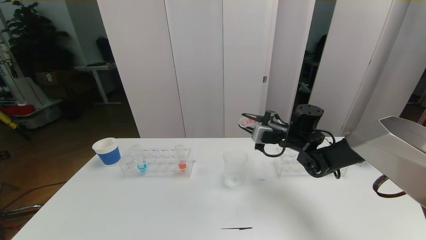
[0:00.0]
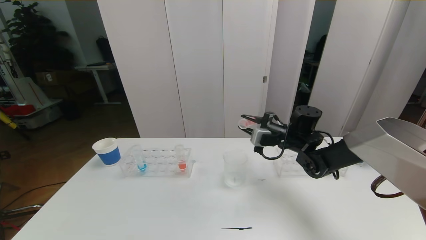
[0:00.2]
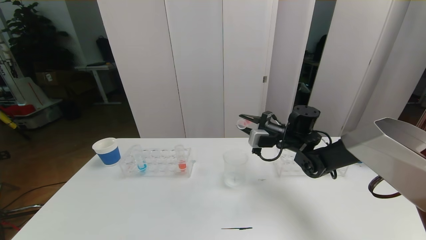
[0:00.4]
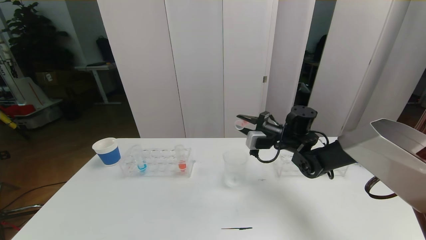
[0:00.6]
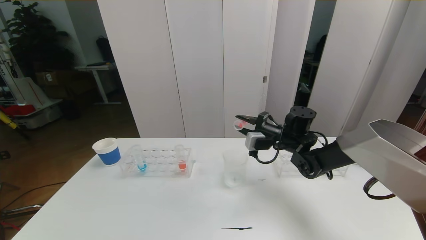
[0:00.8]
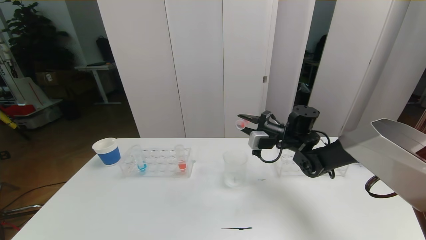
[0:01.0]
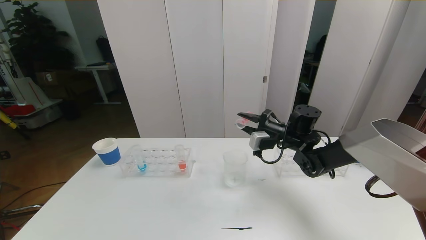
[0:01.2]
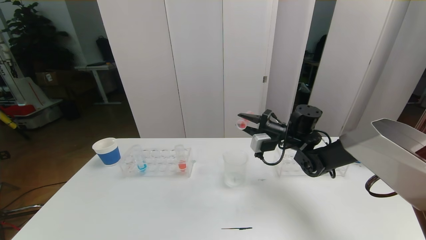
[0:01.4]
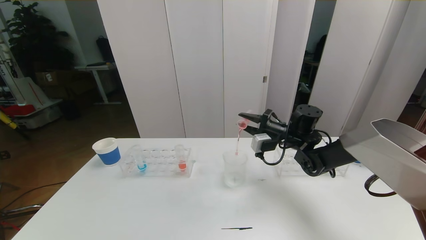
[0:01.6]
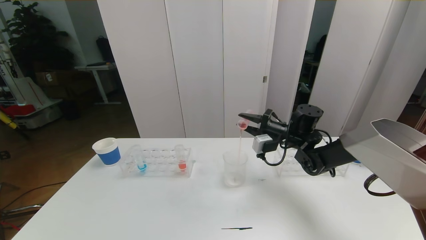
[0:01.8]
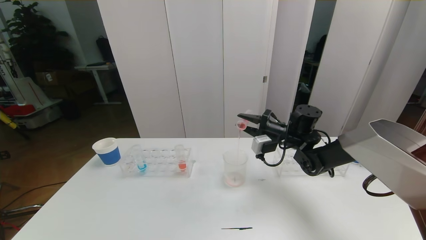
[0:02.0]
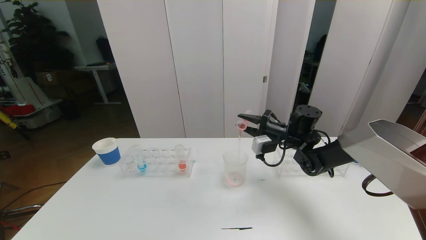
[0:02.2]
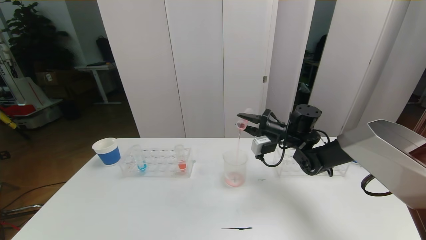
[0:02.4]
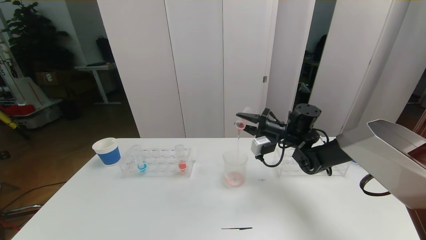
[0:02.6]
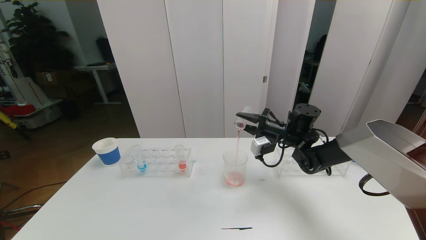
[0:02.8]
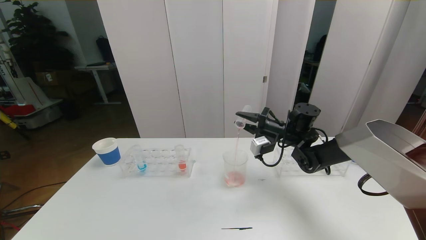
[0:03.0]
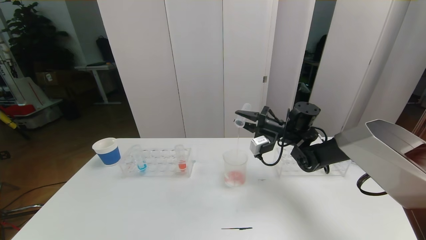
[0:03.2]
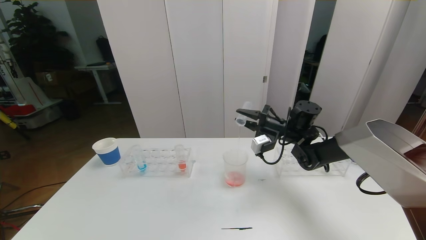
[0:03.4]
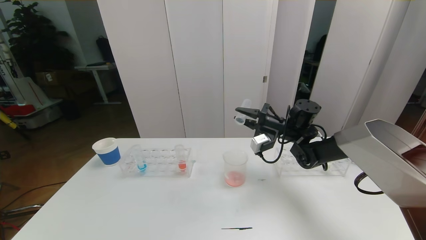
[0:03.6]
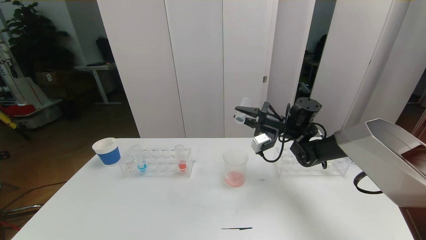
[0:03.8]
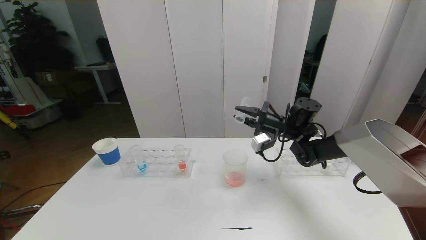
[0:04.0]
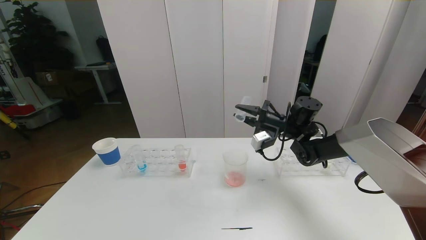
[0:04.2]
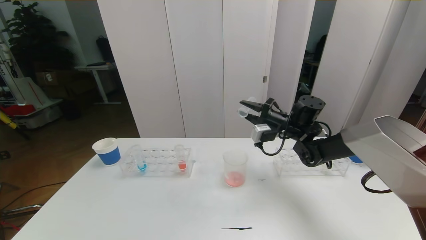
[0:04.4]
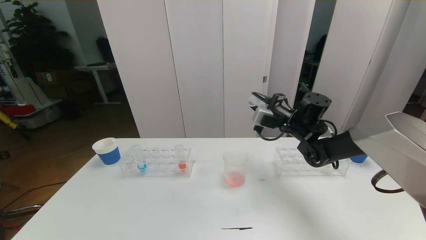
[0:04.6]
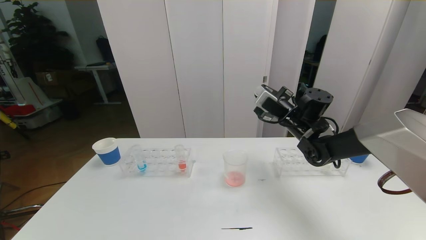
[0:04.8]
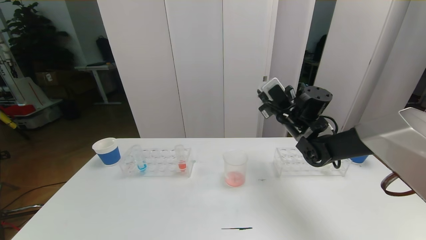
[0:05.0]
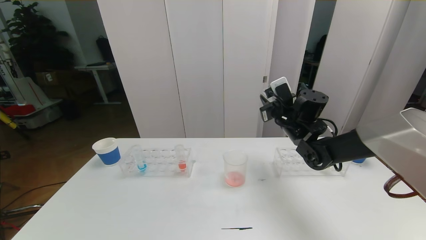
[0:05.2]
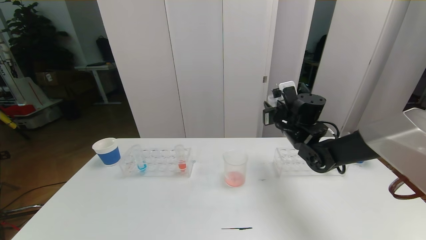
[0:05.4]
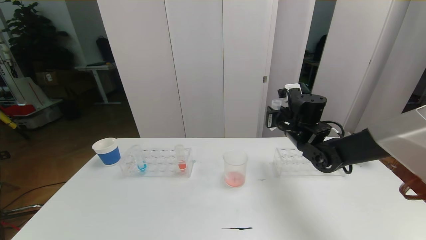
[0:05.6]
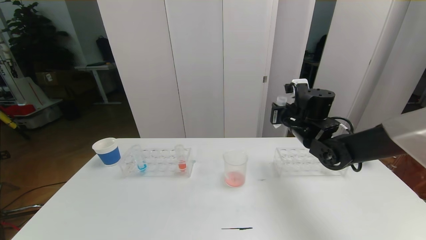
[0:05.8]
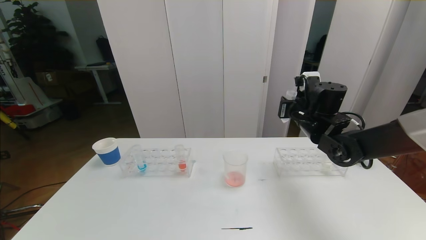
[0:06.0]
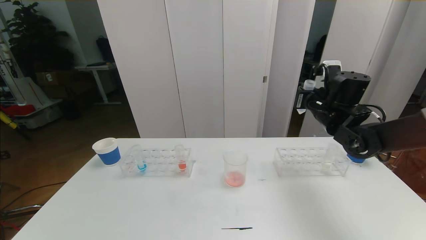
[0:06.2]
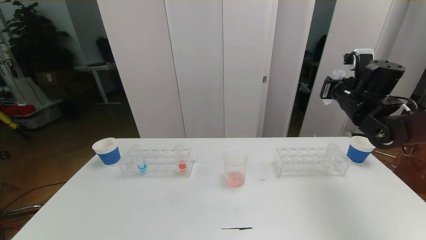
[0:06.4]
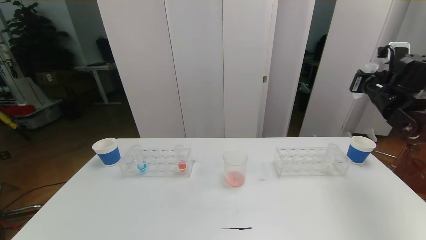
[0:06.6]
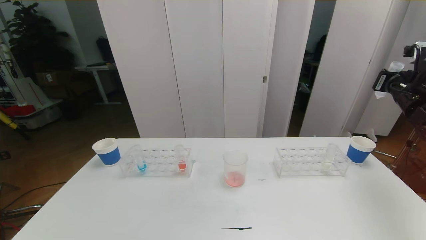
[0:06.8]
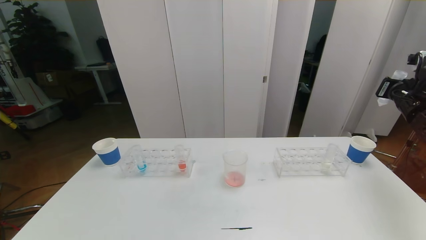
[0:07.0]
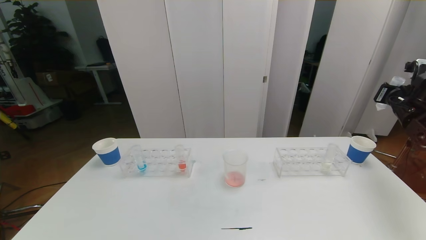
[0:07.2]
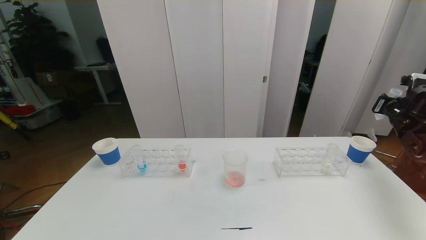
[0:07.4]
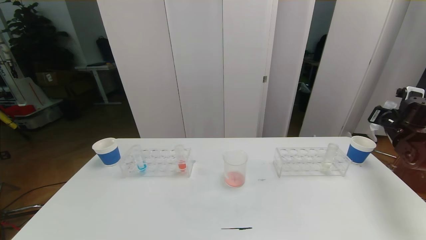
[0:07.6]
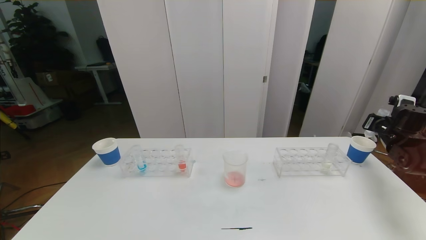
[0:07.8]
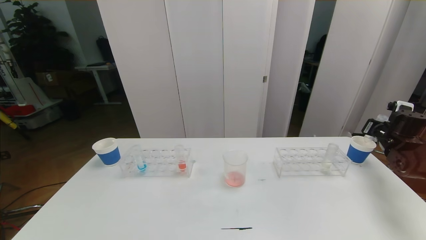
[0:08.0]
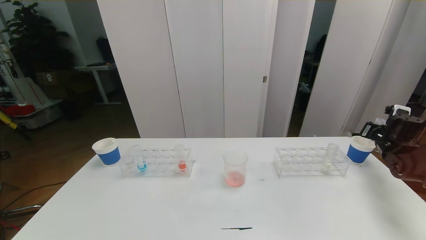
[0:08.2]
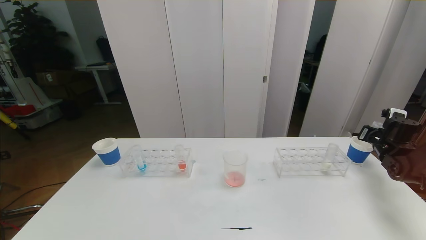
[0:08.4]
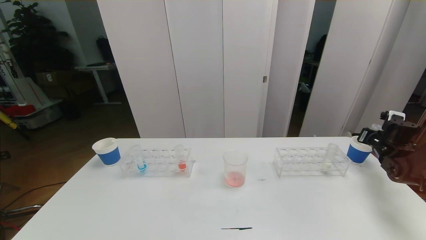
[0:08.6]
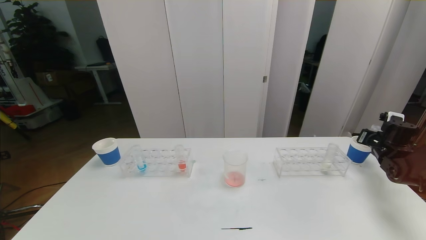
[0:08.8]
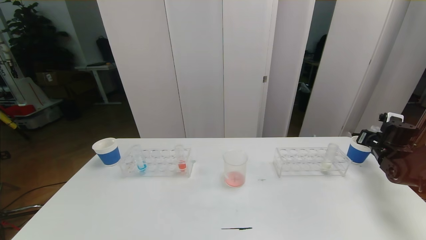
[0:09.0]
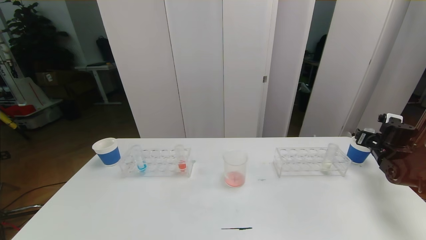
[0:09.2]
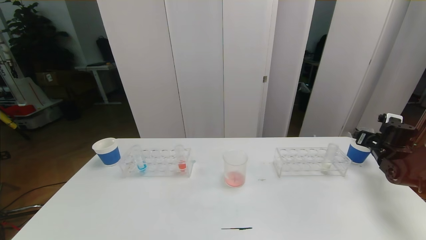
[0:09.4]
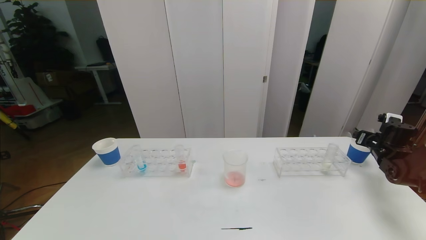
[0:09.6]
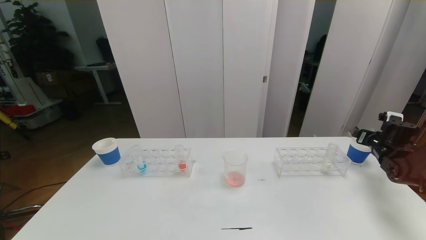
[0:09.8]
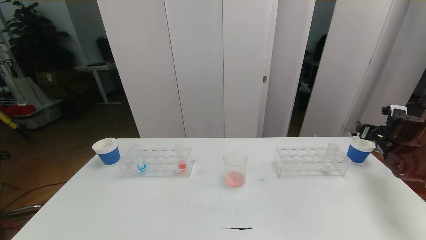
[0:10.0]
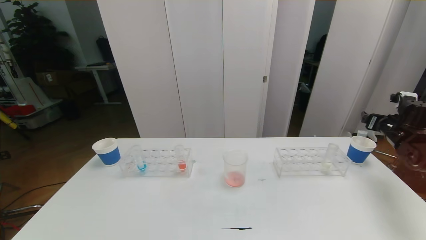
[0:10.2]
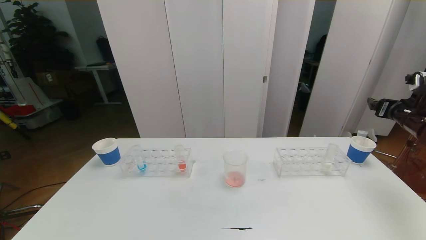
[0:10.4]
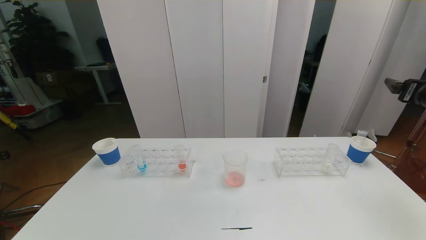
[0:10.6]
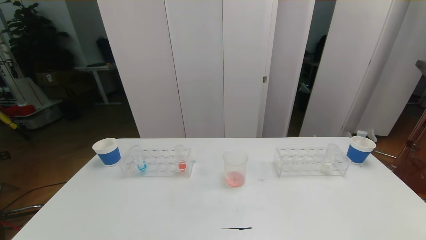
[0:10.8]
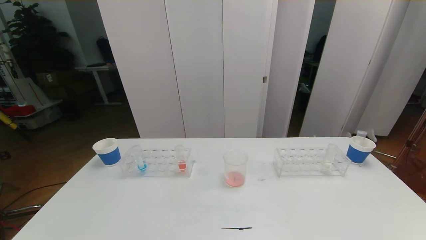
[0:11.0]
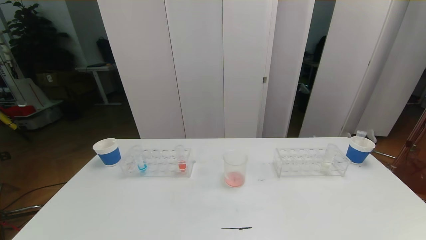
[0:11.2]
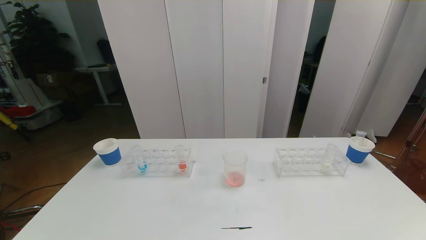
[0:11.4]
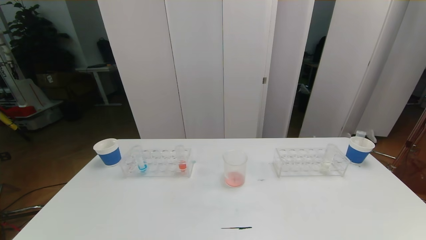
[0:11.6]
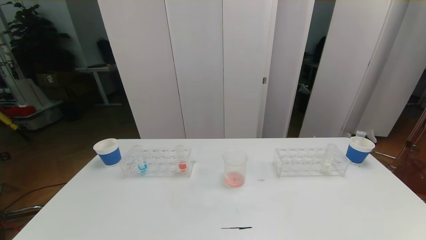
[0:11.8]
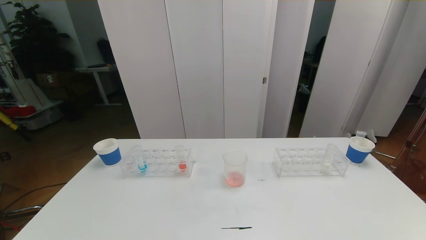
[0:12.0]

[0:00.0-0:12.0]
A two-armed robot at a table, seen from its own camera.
Task of the whole recording: pick up the test tube with red pigment the test tube with blue pigment and the test tube with white pigment by grippers and pour them into the beaker.
0:00.0 to 0:01.6: There are only small adjustments of the grippers.
0:01.6 to 0:03.0: The grippers move only a little.
0:03.0 to 0:04.4: The grippers make only small movements.
0:04.4 to 0:06.0: The right gripper ends up approximately 5 cm from where it was.
0:06.0 to 0:07.6: The right gripper moves to the right, roughly 25 cm.
0:07.6 to 0:09.0: The right gripper travels downward by roughly 10 cm.
0:09.0 to 0:10.4: The right gripper goes about 15 cm upward, and opens up.
0:10.4 to 0:12.0: The right gripper is displaced backward by some 40 cm.

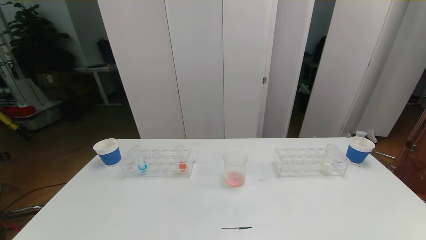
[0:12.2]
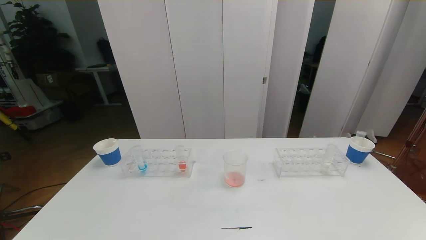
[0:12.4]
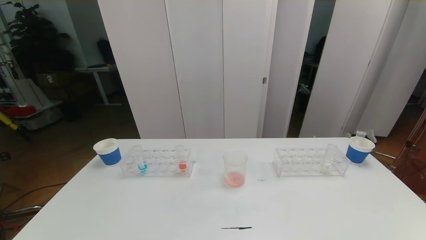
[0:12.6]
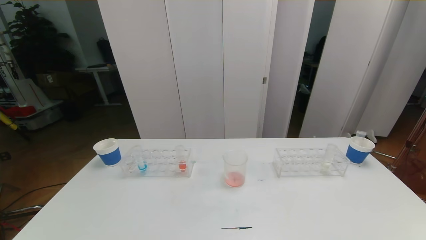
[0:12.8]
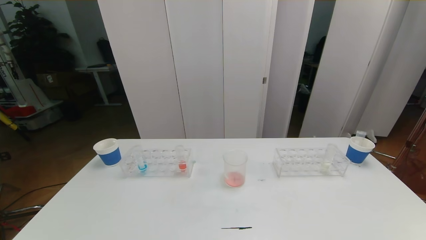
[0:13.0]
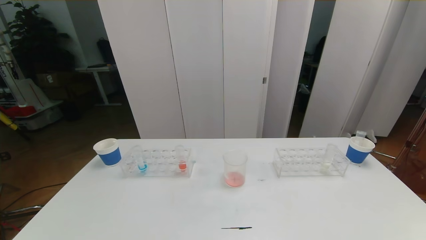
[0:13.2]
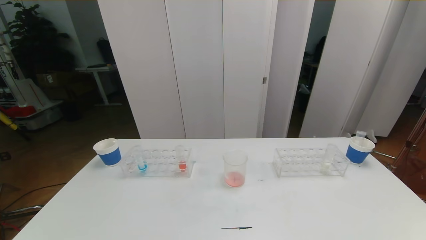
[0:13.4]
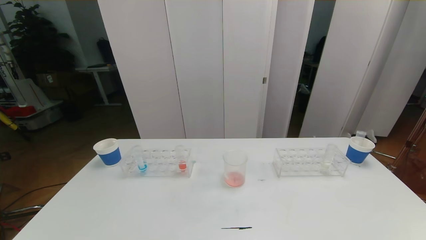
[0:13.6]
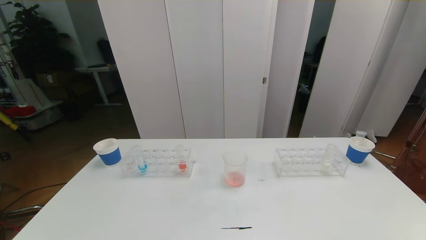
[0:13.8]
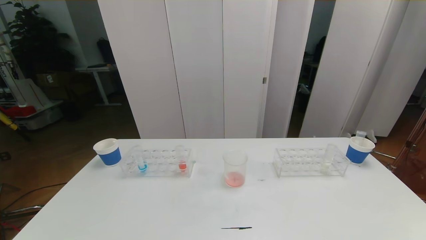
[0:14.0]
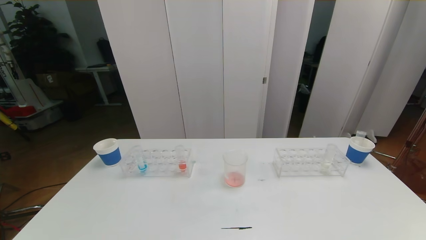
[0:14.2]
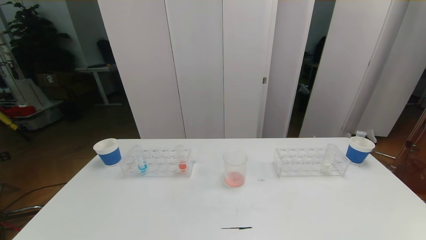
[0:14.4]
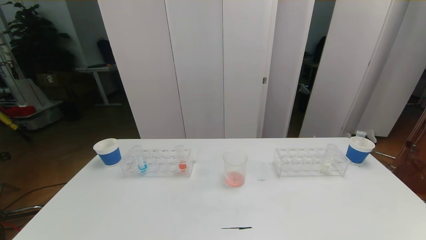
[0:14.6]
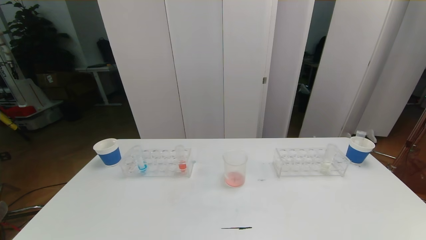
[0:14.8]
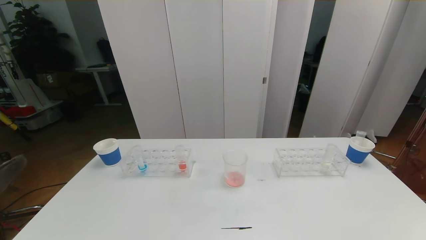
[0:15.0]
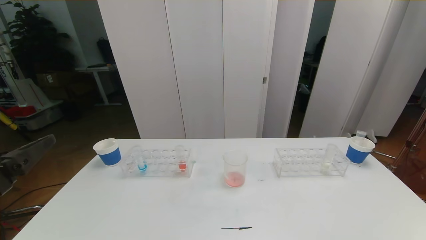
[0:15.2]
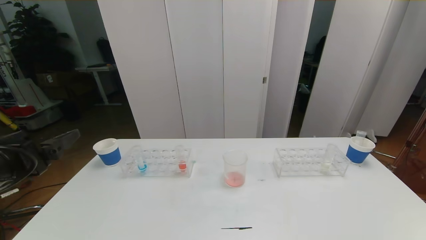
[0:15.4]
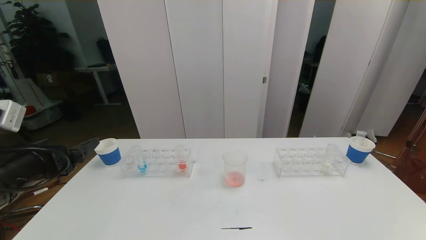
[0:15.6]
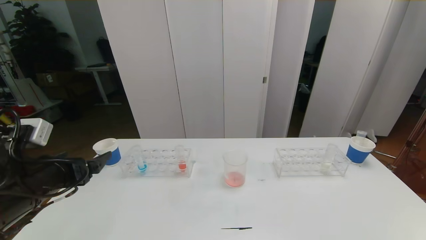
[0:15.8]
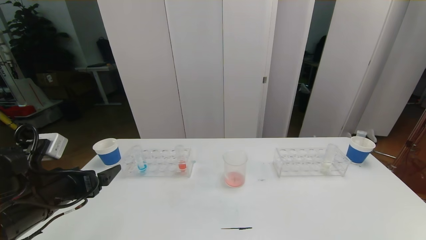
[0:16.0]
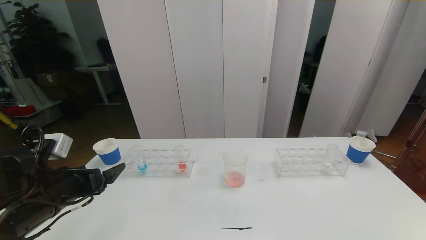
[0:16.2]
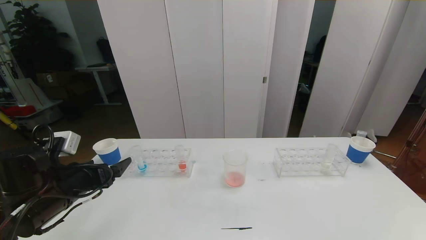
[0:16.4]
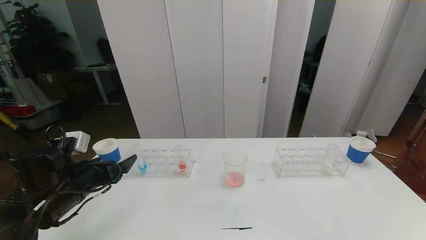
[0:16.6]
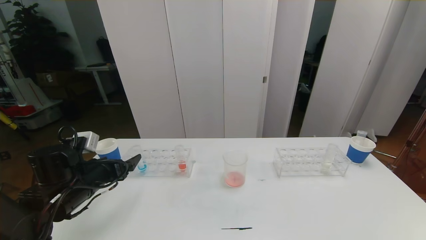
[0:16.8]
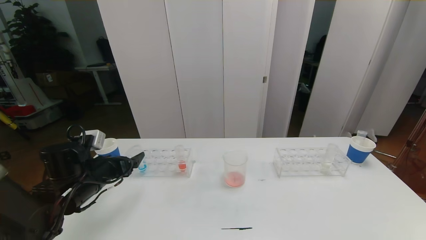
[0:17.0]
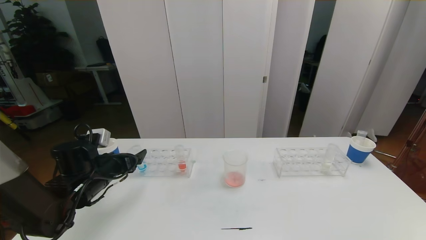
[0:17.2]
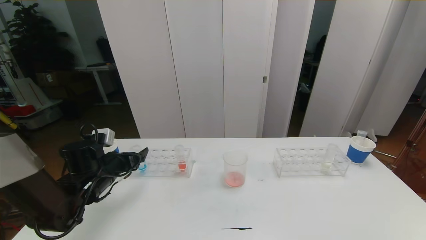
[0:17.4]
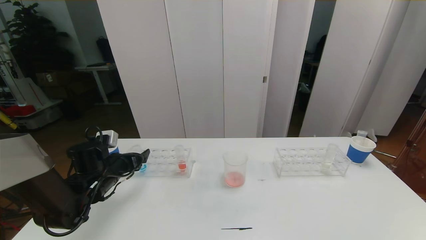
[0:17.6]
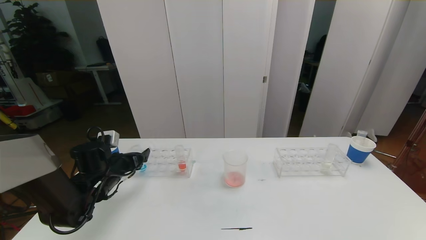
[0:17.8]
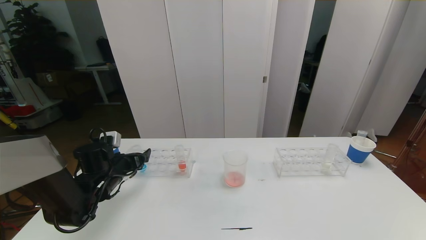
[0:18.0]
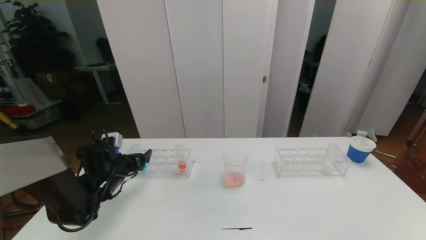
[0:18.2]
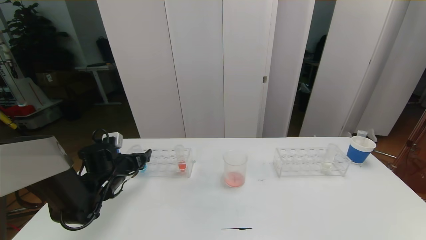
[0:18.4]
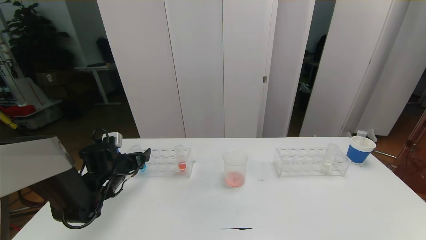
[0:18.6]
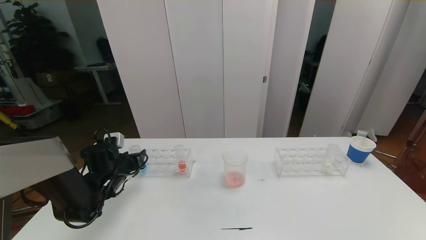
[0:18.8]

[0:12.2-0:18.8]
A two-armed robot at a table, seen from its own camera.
Task of the whole recording: pick up the test tube with red pigment the test tube with blue pigment and the test tube with white pigment by grippers and pour them into the beaker.
0:12.2 to 0:13.8: The two grippers keep their place.
0:15.4 to 0:17.2: The left gripper shifts about 20 cm forward and downward.
0:17.2 to 0:18.8: The left gripper shifts roughly 5 cm forward, and closes.
